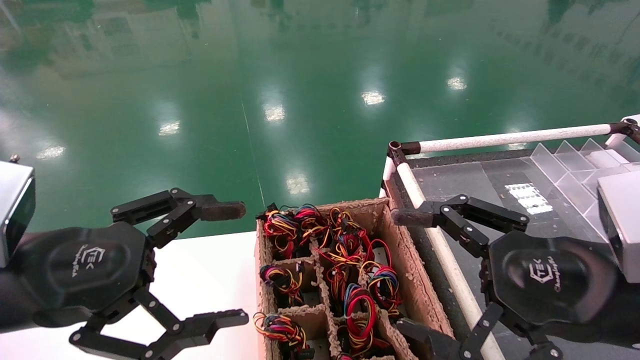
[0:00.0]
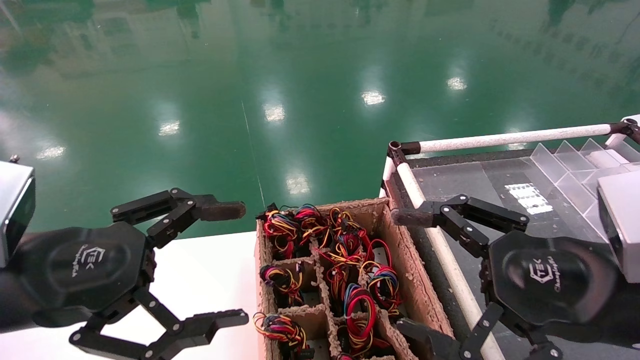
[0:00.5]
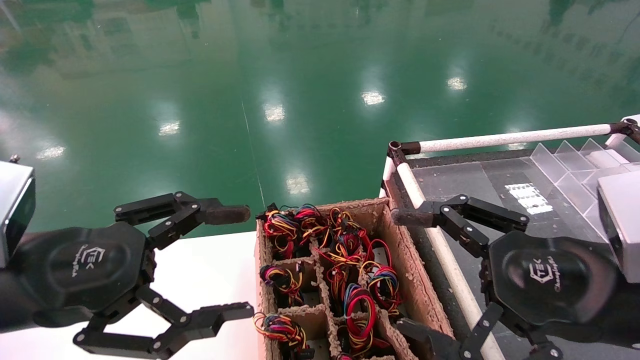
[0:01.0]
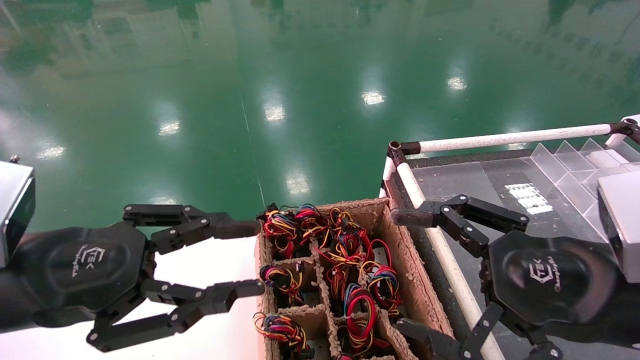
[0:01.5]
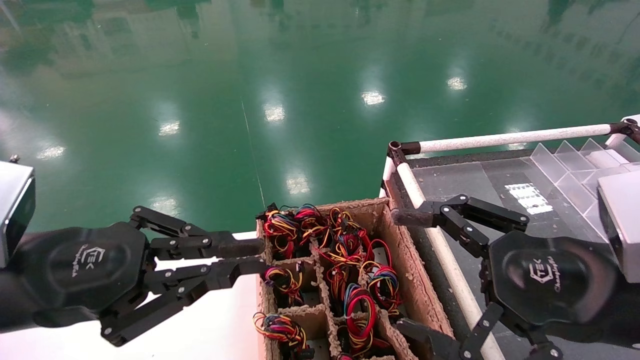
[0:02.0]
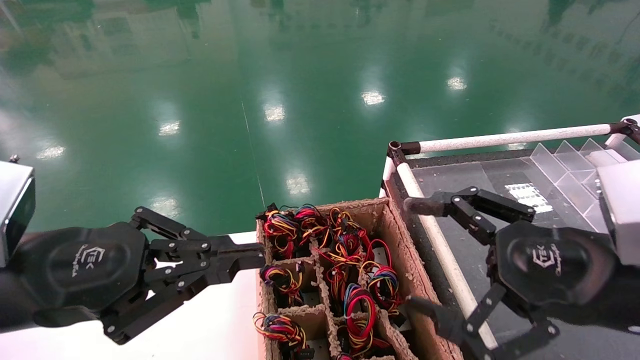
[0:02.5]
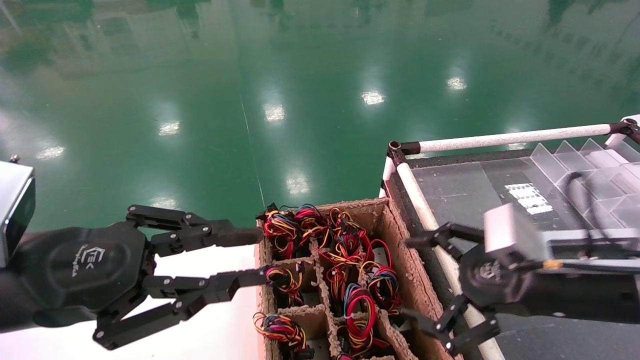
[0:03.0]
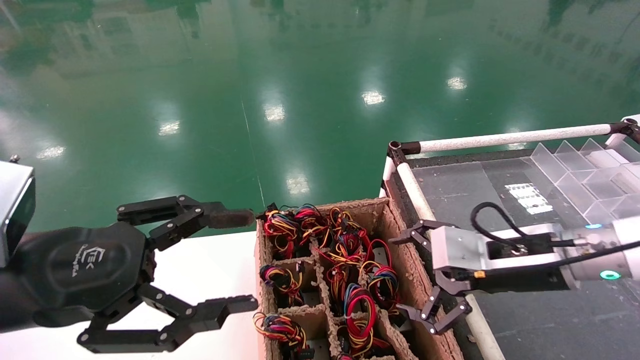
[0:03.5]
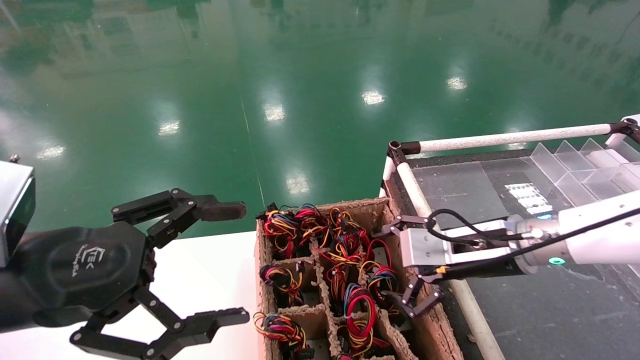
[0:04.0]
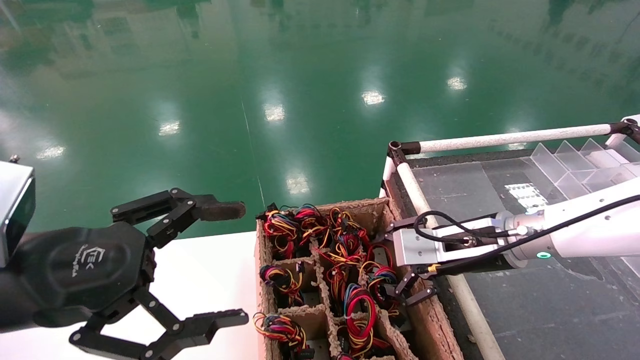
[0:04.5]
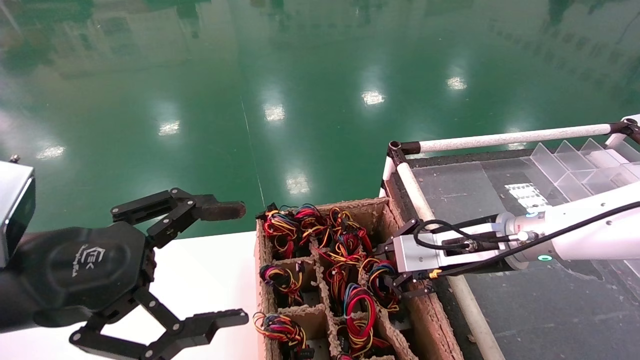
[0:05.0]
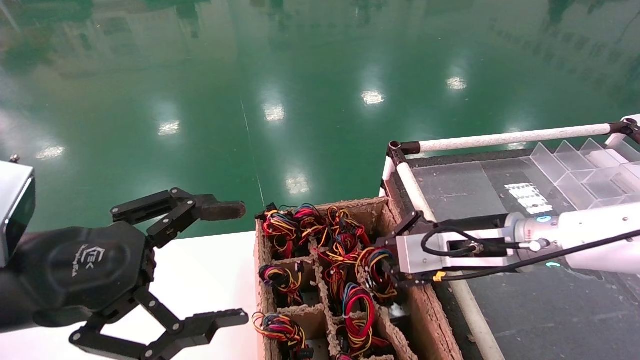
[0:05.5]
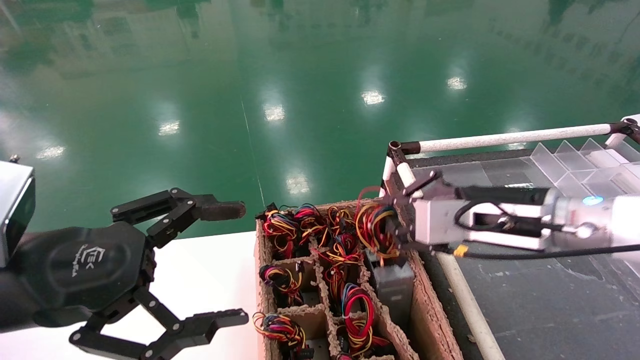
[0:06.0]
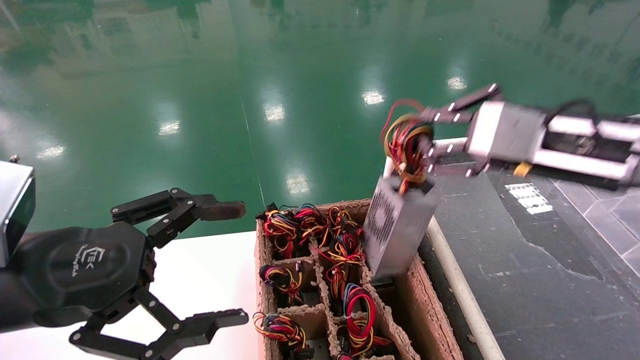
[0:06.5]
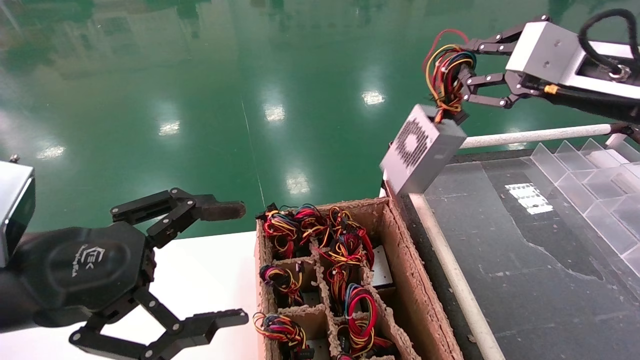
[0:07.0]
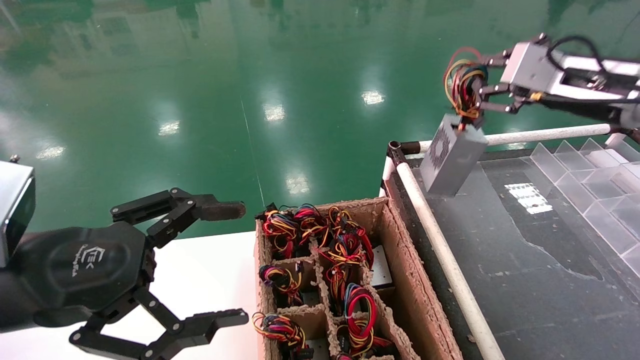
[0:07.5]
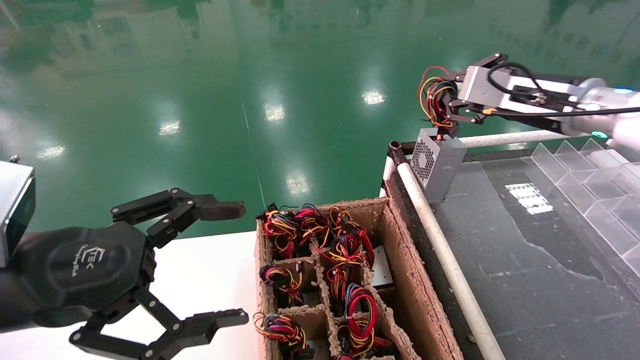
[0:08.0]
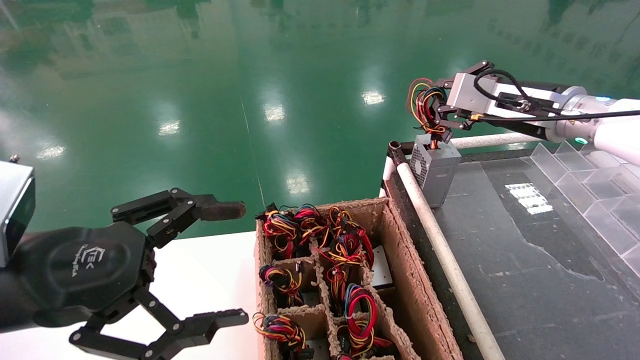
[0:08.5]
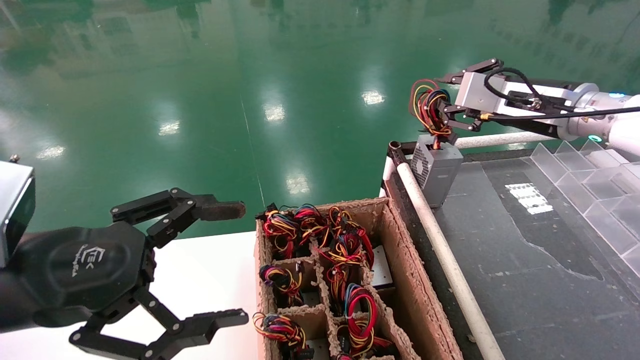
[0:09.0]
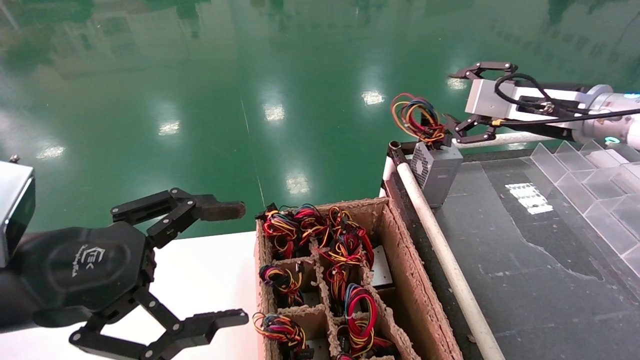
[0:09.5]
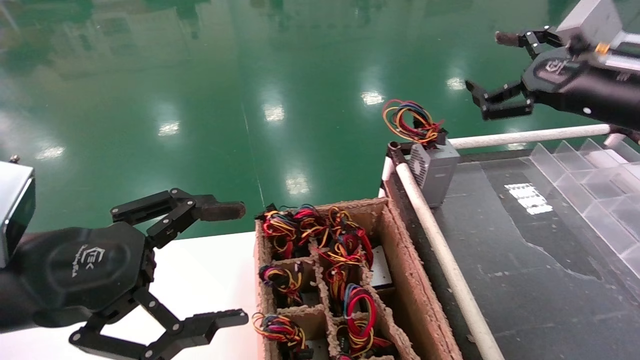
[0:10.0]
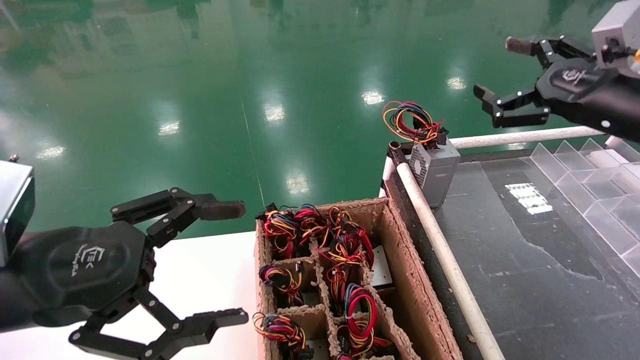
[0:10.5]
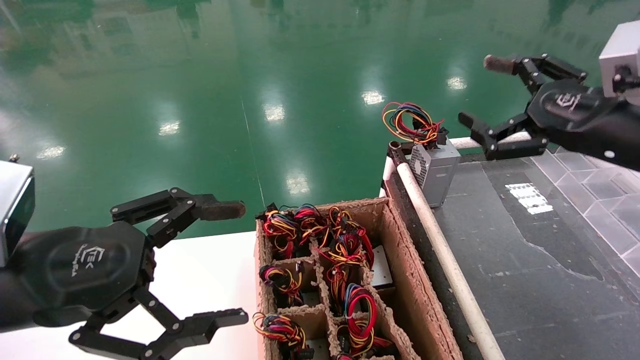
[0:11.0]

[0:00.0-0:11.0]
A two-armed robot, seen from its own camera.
Step, 0:02.5 to 0:05.5: Grab and lift the power supply from the large box.
Step, 0:06.0 to 0:09.0: Place the power supply on the operating table.
0:00.0 to 0:02.0: The left gripper closes up.
0:02.0 to 0:03.5: The right gripper heads forward, covering some 15 cm, while the left gripper opens.
0:03.5 to 0:05.5: The right gripper closes up, while the left gripper opens up.
0:05.5 to 0:07.5: The right gripper heads upward and to the right, covering approximately 20 cm.
0:07.5 to 0:09.0: The right gripper ends up roughly 5 cm from where it was.
0:09.0 to 0:11.0: The right gripper goes roughly 10 cm backward, and opens its fingers.
